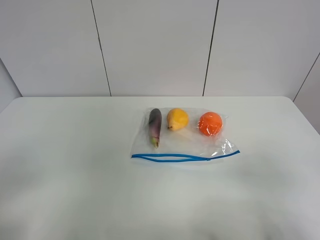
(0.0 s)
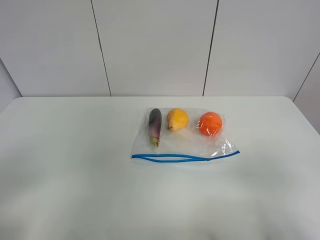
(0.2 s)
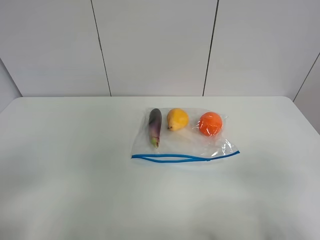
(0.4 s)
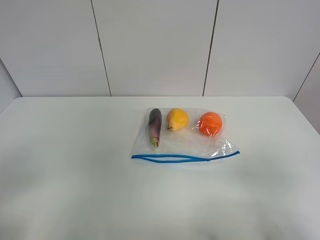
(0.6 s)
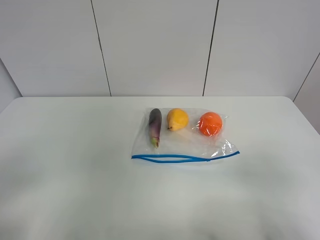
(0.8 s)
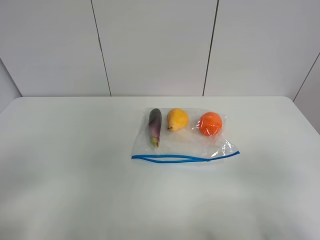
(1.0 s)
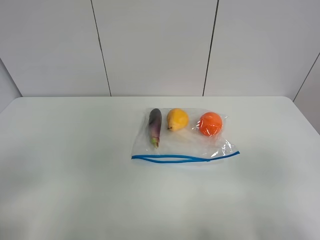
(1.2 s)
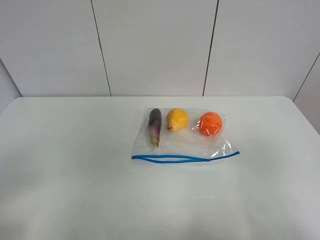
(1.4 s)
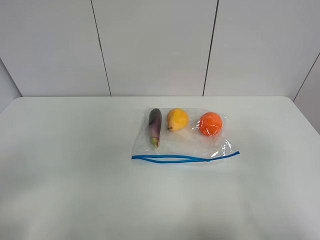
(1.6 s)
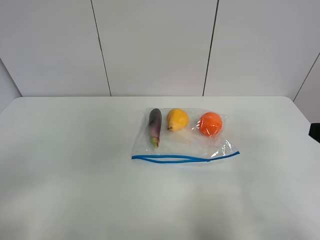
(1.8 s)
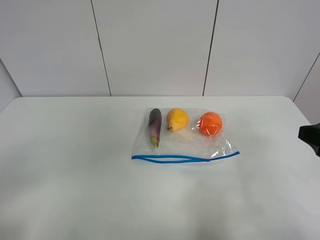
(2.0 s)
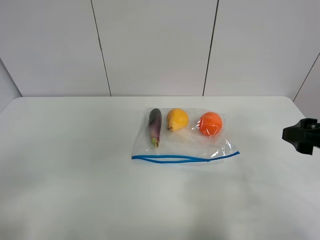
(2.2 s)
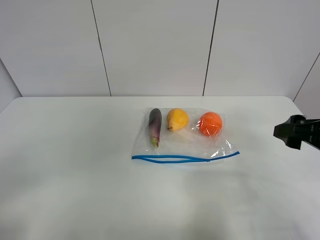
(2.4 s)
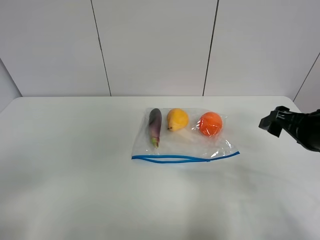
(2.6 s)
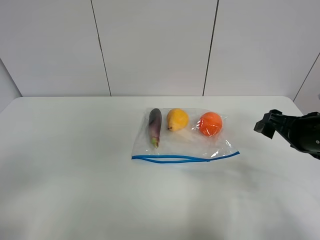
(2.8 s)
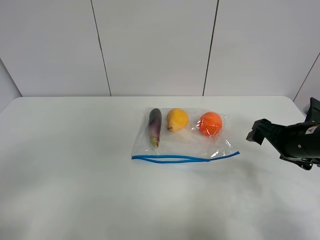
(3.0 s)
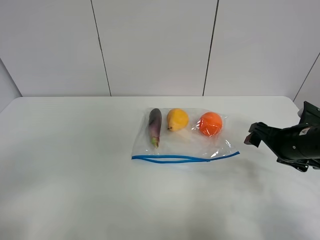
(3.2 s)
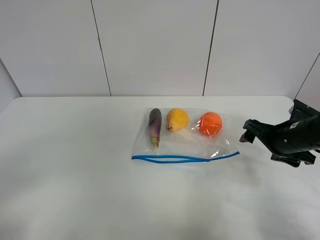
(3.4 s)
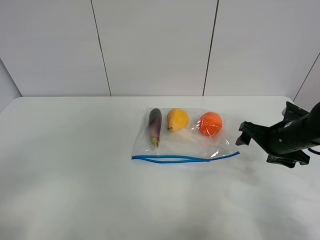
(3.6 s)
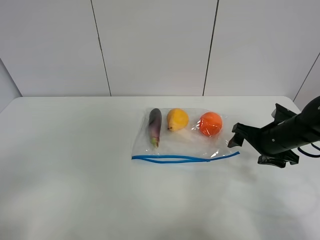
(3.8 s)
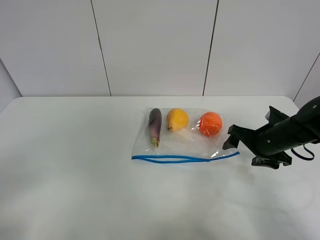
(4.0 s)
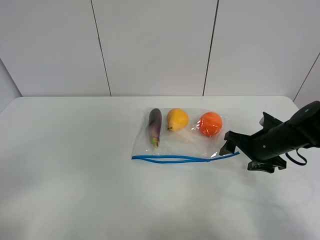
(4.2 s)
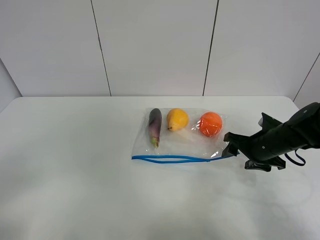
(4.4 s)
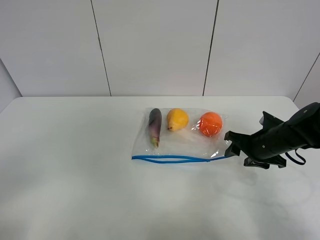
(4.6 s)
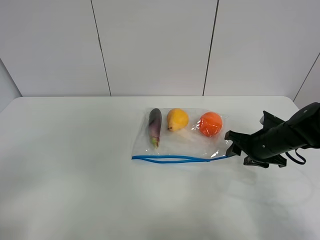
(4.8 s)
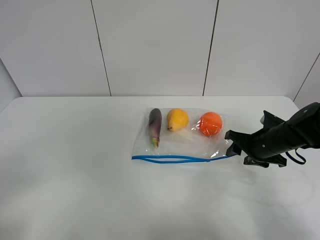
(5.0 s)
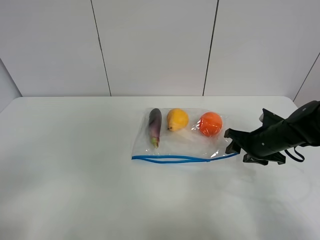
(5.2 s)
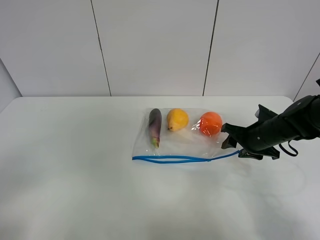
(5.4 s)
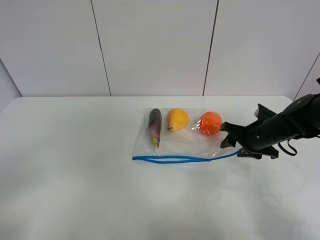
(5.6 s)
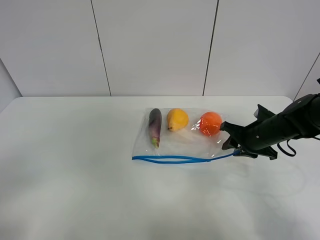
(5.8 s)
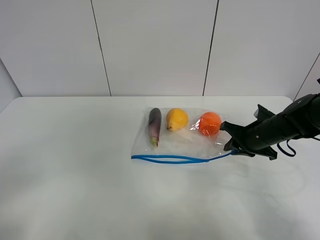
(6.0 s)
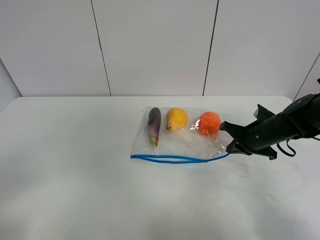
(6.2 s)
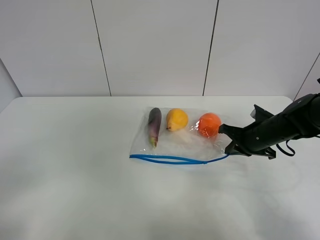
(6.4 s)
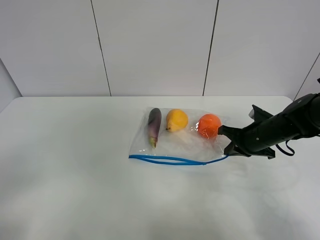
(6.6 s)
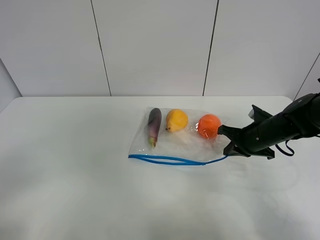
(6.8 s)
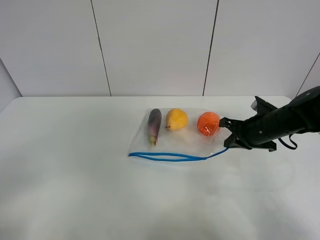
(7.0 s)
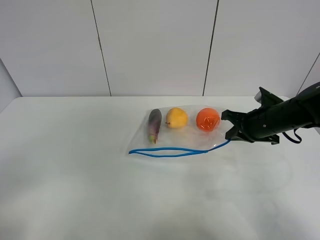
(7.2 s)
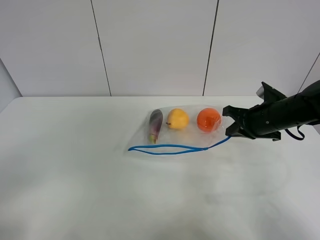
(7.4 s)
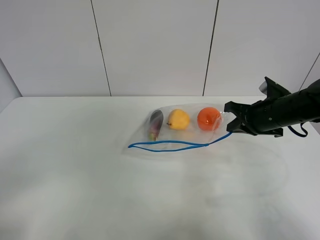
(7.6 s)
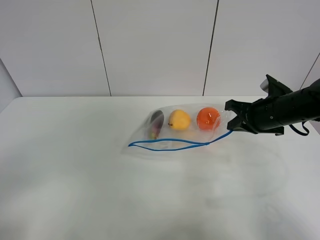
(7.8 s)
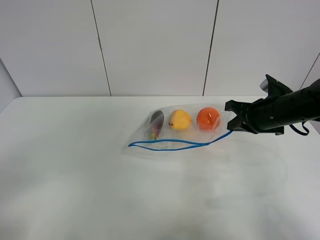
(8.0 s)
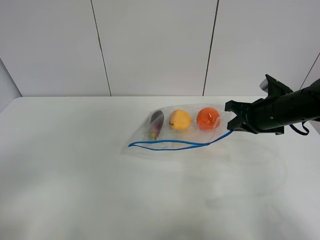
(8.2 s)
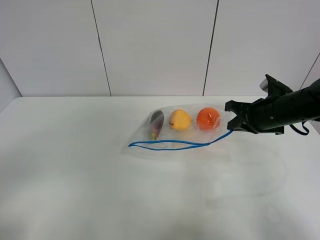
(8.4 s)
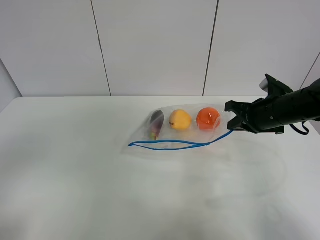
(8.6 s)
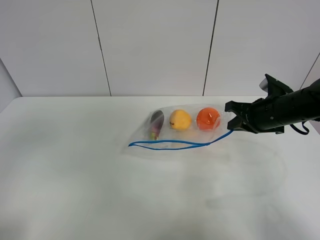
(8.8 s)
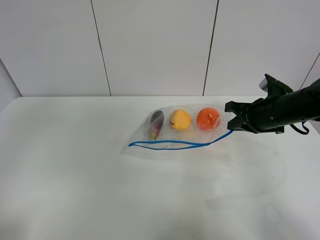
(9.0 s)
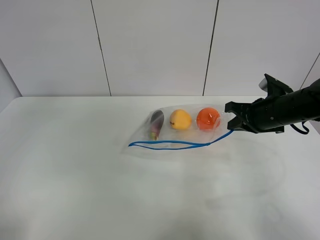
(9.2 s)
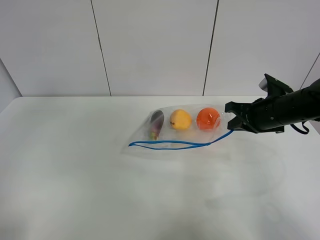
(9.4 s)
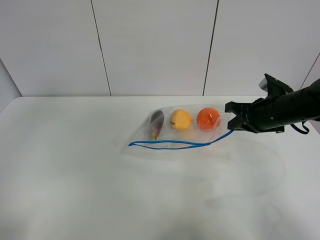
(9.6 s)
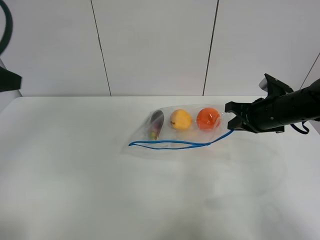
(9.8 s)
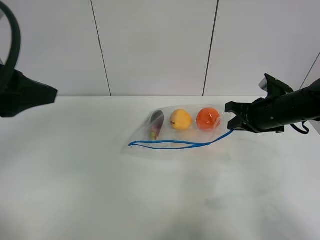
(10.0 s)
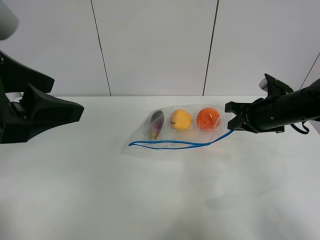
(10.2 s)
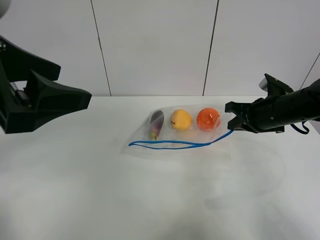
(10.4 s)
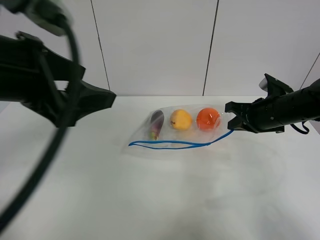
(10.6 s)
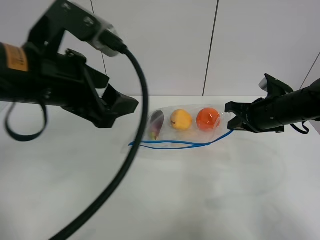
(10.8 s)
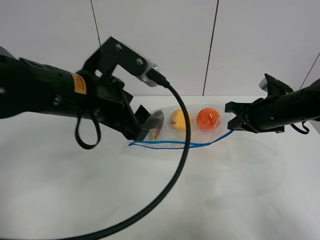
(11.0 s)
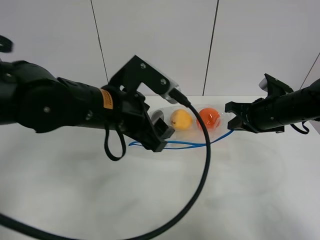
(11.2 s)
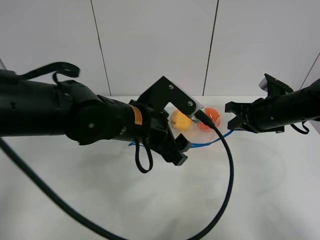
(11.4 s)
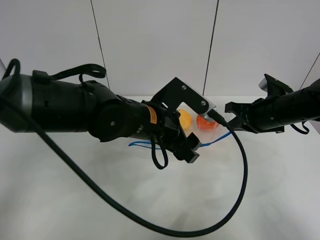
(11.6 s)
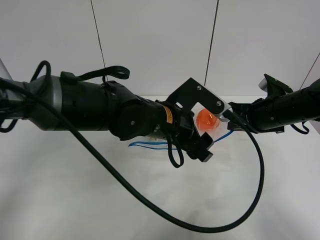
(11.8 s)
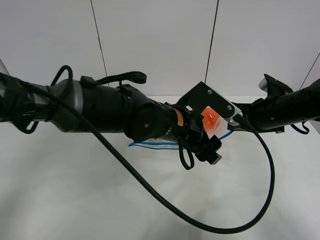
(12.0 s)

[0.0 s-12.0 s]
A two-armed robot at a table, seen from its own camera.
Step, 0.0 to 6.0 s: Grasp the fruit bag with right gripper.
Step, 6.2 to 8.4 s: Lift the fruit bag with your right gripper.
0.0 to 1.6 s: The right gripper is displaced forward by approximately 5 cm.
1.6 to 3.0 s: The right gripper is displaced forward and downward by some 20 cm.
3.0 to 4.4 s: The right gripper moves downward and forward, roughly 10 cm.
4.4 to 6.0 s: The right gripper closes.
6.0 to 7.6 s: The right gripper goes about 5 cm upward.
9.0 to 10.4 s: The left gripper goes roughly 15 cm to the right.
10.4 to 12.0 s: The left gripper travels to the right, downward and forward by about 30 cm.

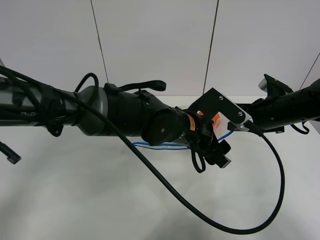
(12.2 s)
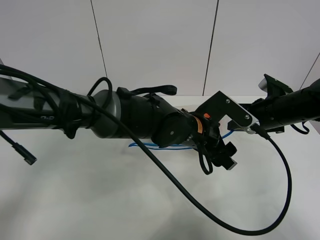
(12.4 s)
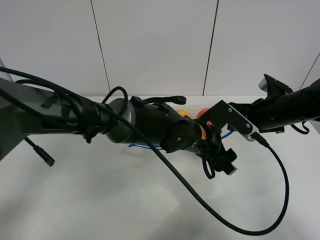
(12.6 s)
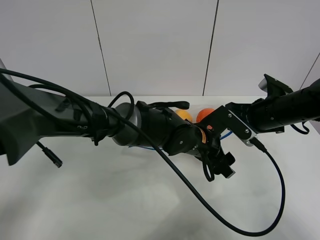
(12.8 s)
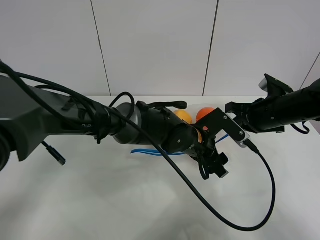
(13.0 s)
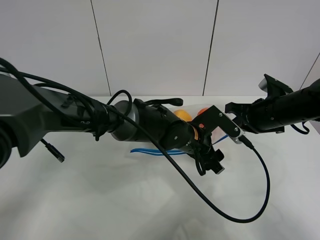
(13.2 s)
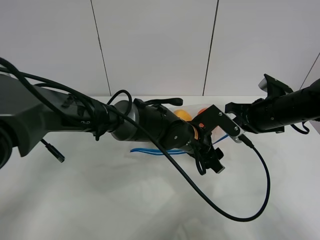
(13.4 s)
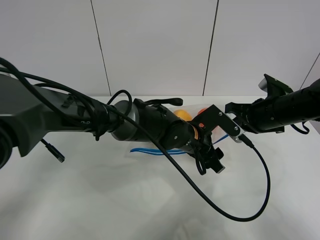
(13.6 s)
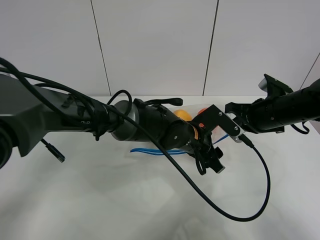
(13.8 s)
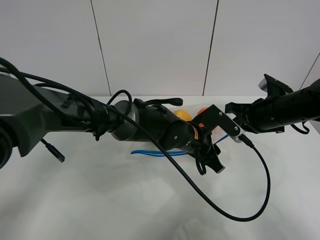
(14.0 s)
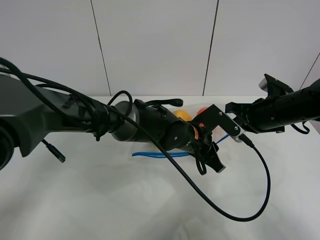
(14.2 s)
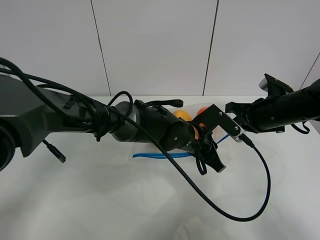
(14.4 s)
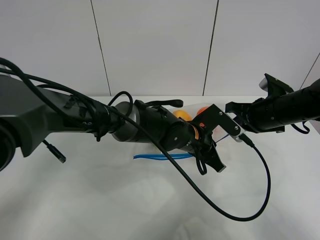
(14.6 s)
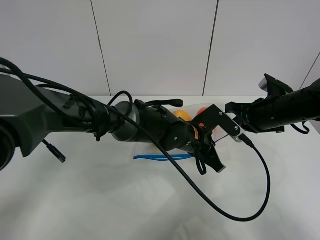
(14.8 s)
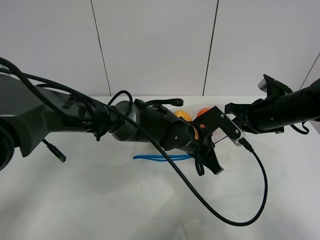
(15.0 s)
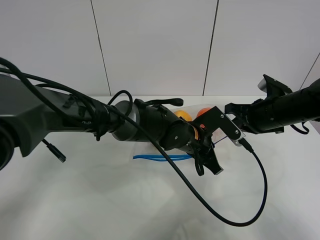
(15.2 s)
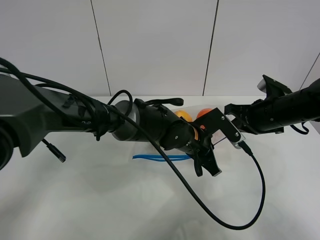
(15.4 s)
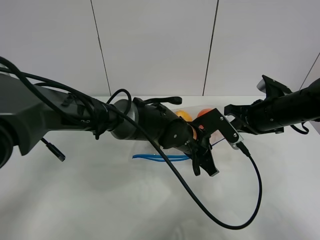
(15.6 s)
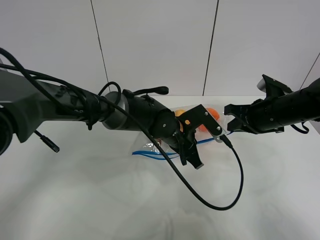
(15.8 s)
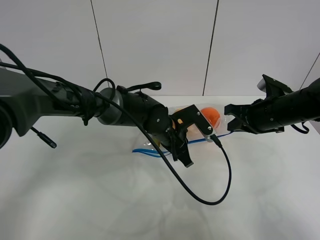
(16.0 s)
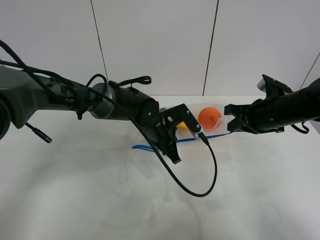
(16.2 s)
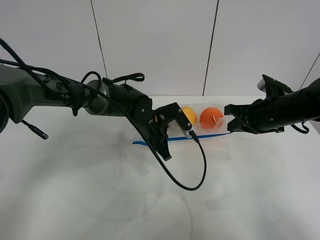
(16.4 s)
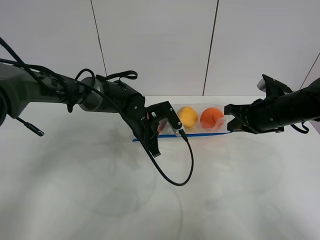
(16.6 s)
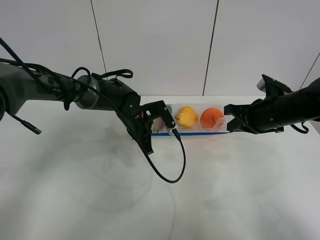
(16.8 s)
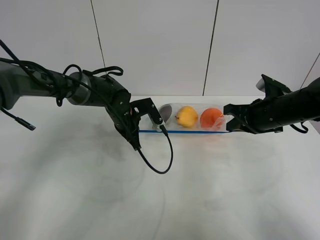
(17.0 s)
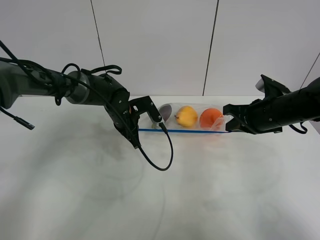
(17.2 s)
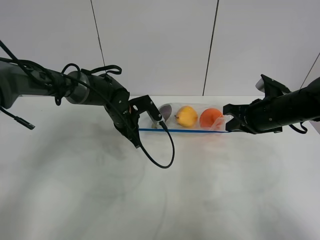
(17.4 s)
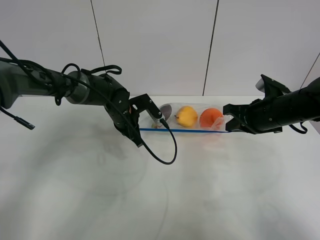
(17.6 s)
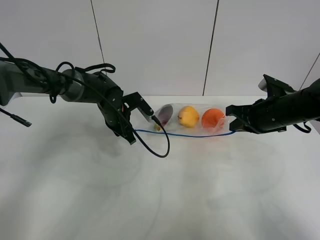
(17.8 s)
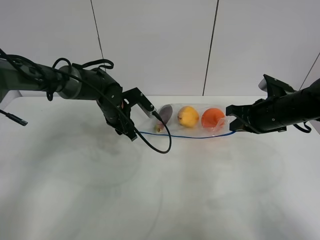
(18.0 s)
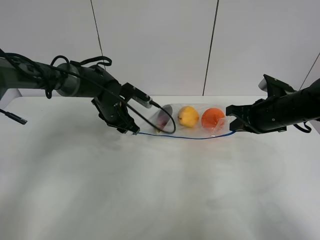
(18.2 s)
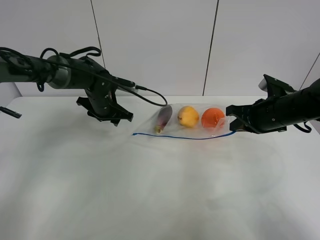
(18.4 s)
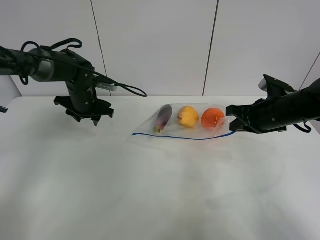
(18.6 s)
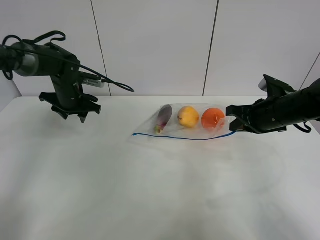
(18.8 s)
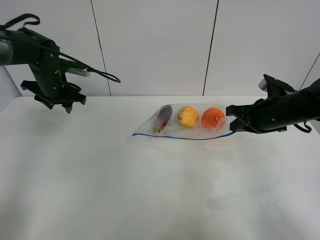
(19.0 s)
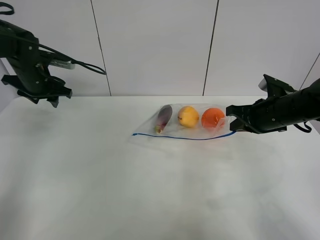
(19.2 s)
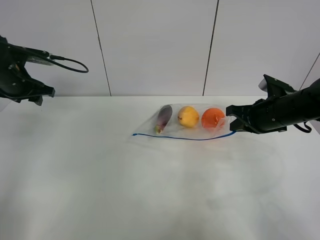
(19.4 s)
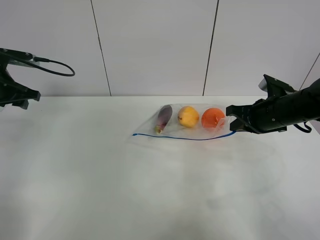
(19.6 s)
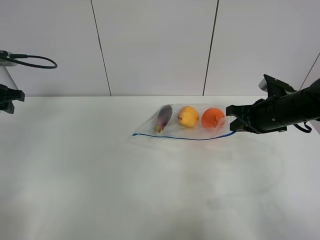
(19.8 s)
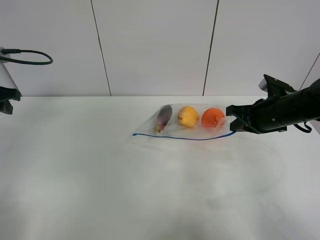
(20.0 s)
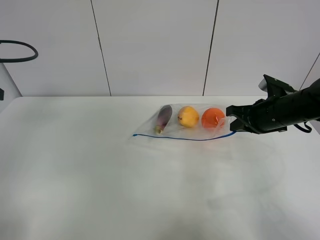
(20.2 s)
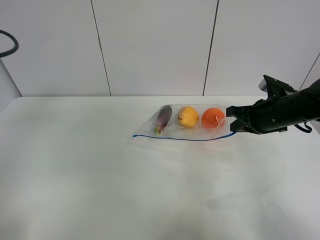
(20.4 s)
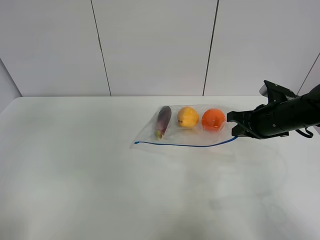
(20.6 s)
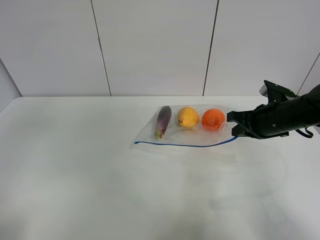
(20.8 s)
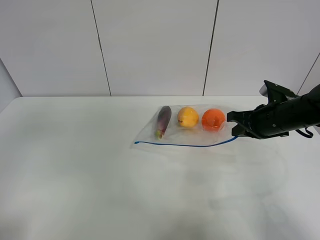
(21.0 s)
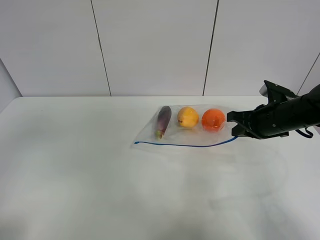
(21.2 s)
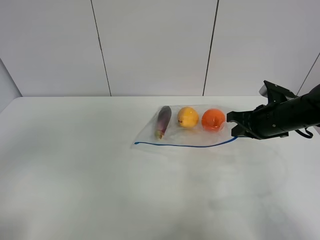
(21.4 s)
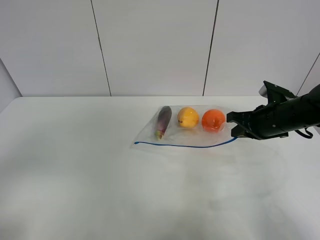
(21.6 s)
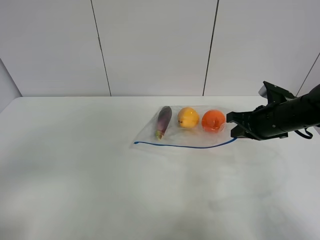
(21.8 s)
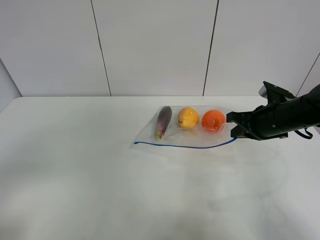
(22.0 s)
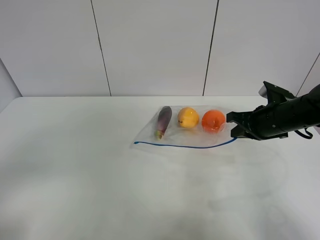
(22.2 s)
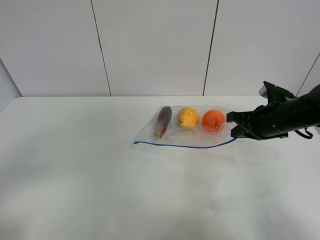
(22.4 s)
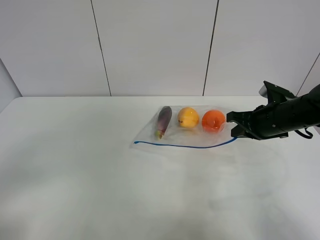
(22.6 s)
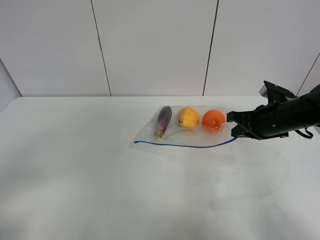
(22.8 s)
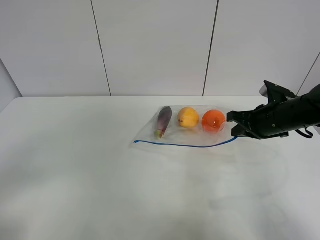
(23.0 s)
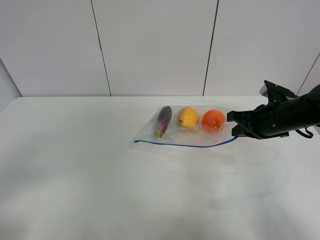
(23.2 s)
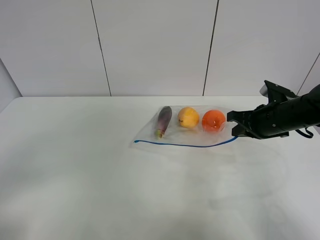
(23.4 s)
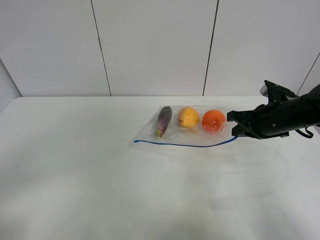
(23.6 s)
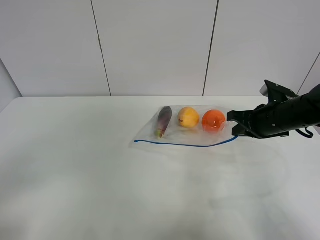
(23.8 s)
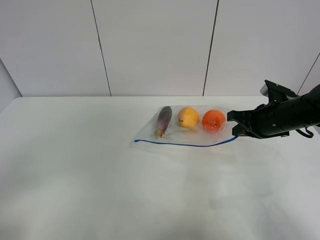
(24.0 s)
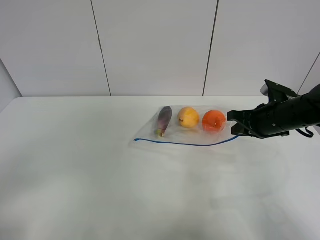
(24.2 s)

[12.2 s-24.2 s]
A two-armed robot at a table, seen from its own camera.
Step, 12.2 to 18.0 s: Pull the fruit bag with left gripper.
12.2 to 13.8 s: The left gripper travels downward by approximately 5 cm.
13.8 to 15.2 s: The left gripper closes up.
15.2 to 16.6 s: The left gripper shifts roughly 15 cm to the left and forward.
16.6 to 18.2 s: The left gripper heads to the left, covering some 5 cm, and opens up.
18.2 to 19.8 s: The left gripper is displaced to the left, upward and backward by some 30 cm.
19.8 to 21.2 s: The left gripper heads backward and upward, covering about 30 cm.
22.6 to 24.2 s: The grippers make only small movements.
